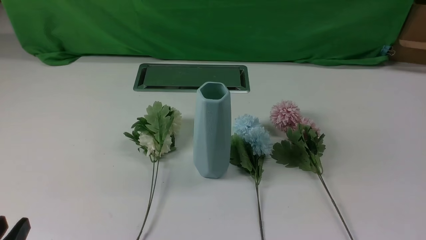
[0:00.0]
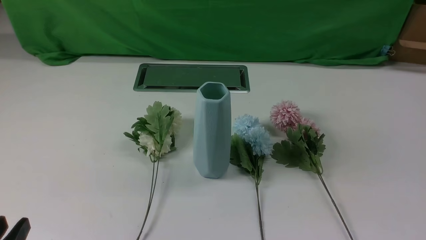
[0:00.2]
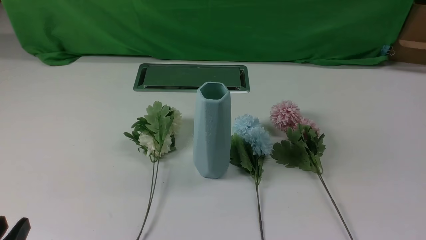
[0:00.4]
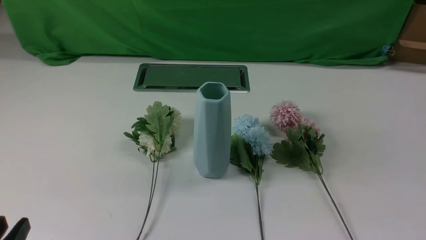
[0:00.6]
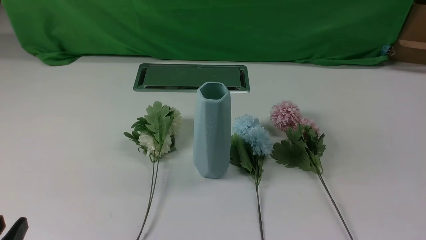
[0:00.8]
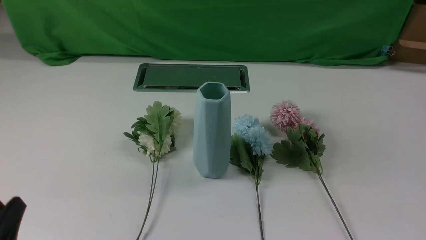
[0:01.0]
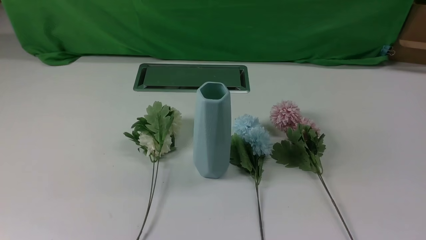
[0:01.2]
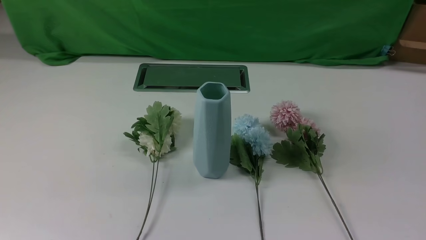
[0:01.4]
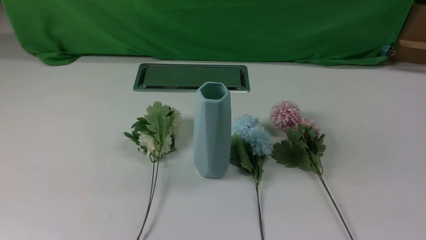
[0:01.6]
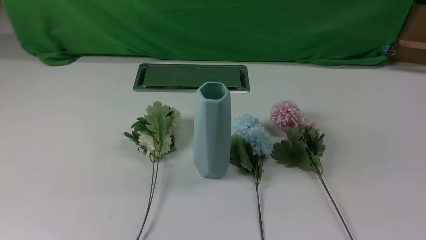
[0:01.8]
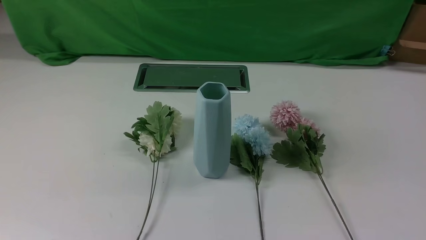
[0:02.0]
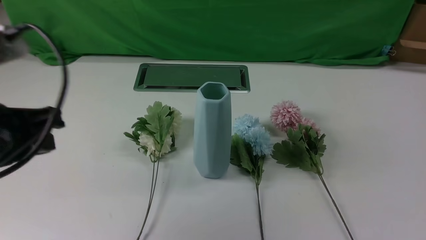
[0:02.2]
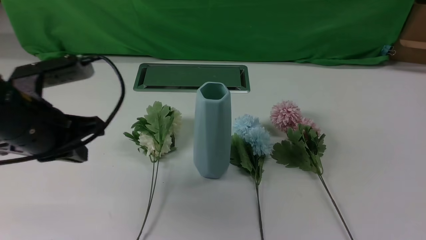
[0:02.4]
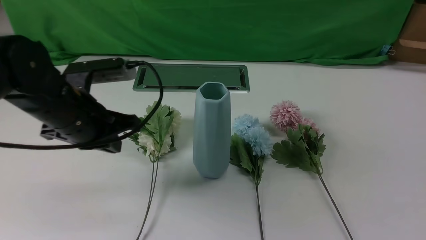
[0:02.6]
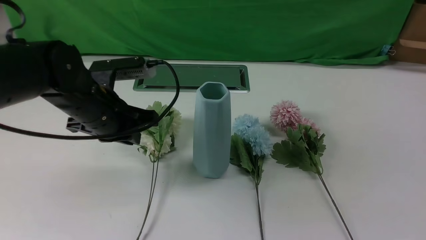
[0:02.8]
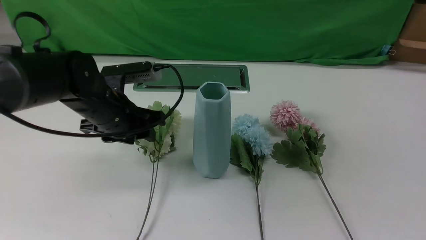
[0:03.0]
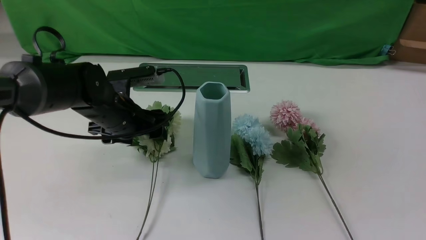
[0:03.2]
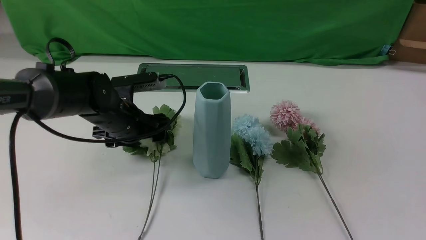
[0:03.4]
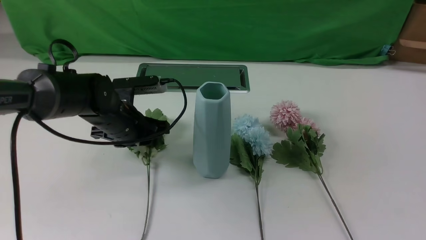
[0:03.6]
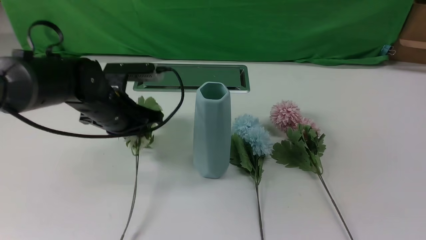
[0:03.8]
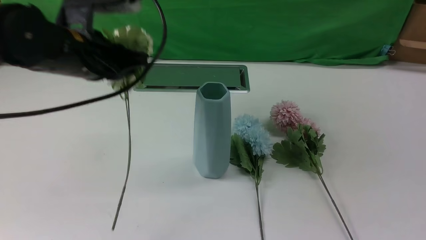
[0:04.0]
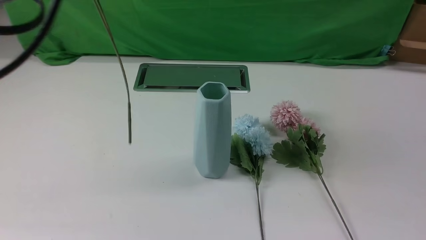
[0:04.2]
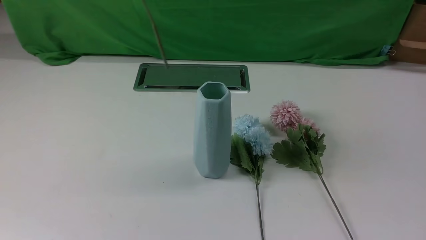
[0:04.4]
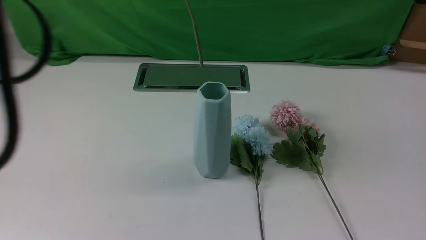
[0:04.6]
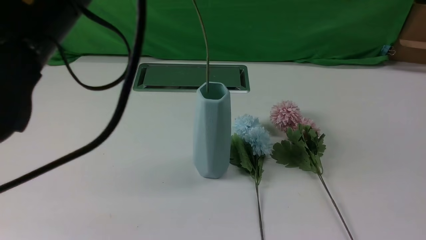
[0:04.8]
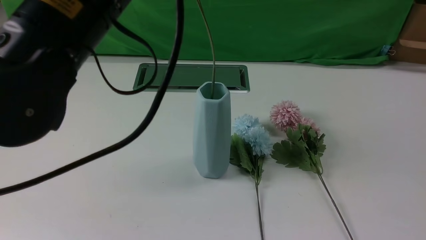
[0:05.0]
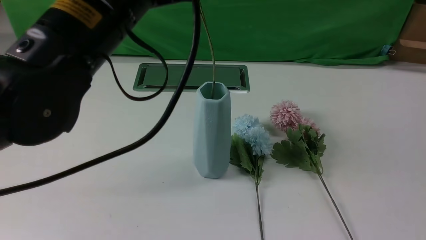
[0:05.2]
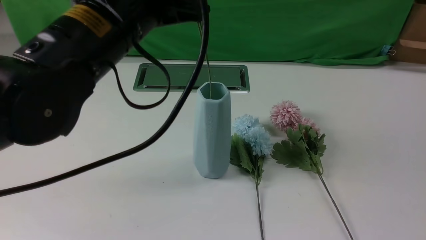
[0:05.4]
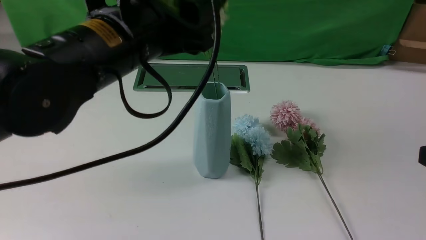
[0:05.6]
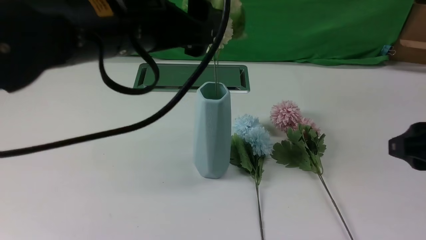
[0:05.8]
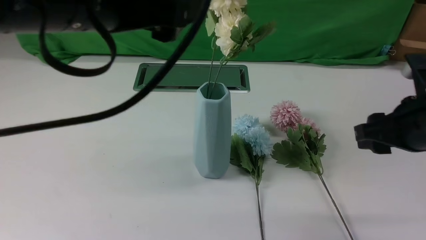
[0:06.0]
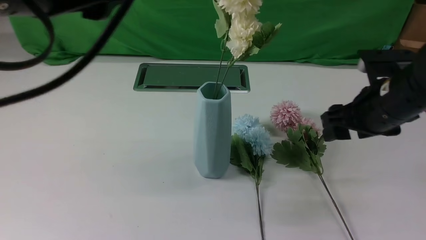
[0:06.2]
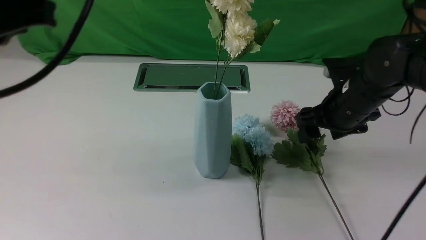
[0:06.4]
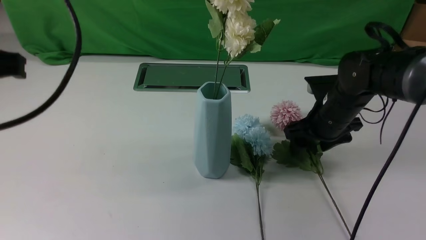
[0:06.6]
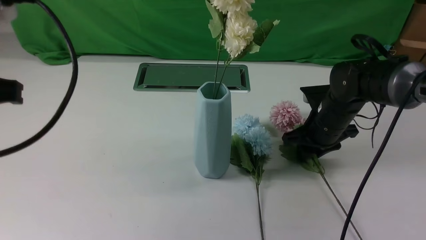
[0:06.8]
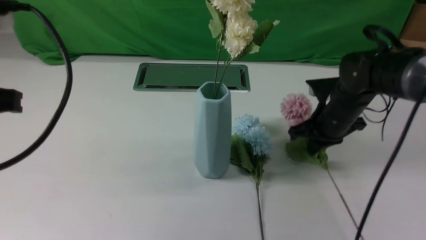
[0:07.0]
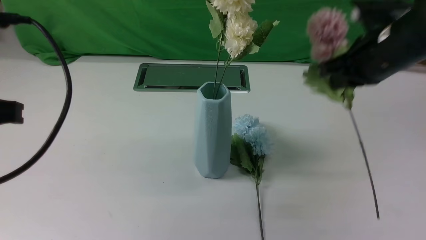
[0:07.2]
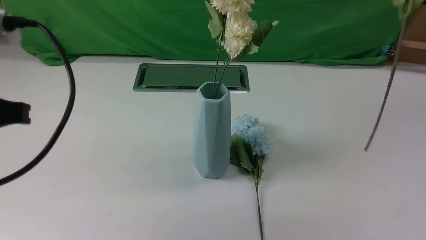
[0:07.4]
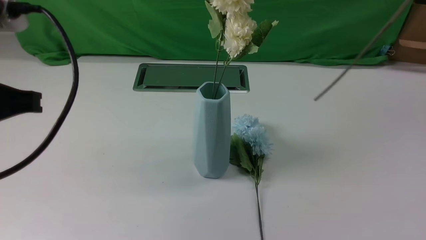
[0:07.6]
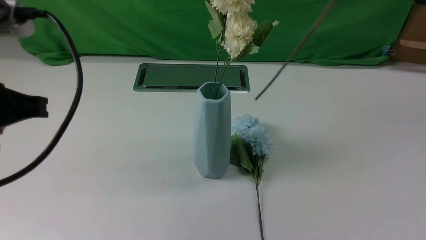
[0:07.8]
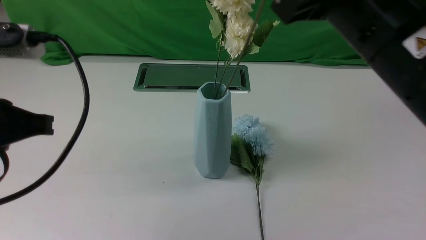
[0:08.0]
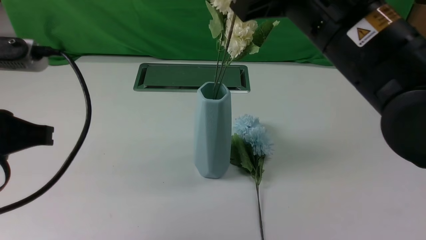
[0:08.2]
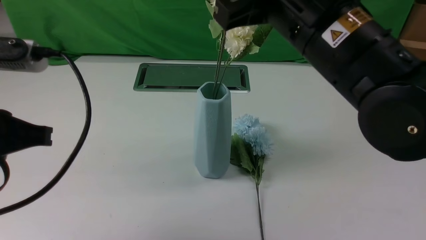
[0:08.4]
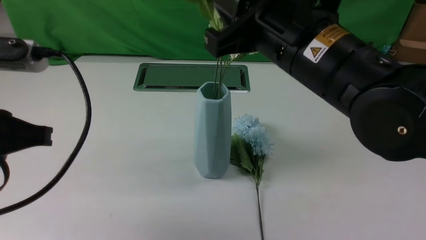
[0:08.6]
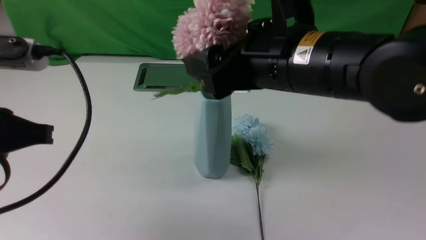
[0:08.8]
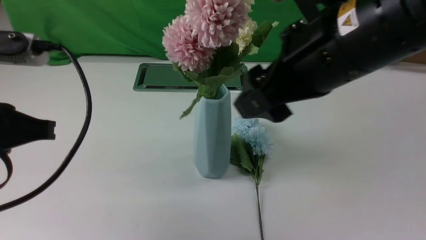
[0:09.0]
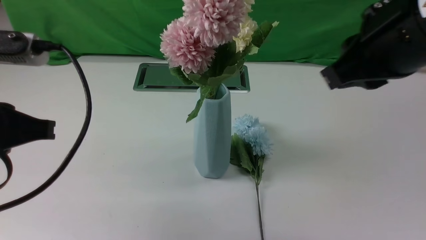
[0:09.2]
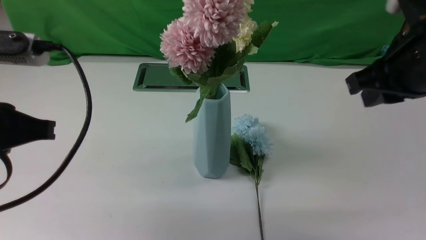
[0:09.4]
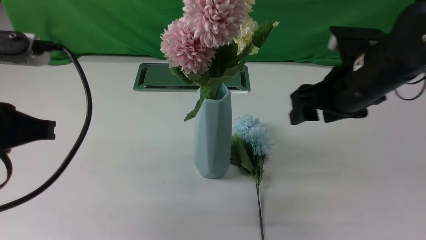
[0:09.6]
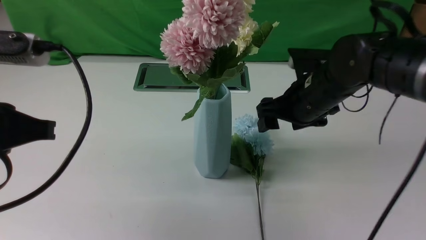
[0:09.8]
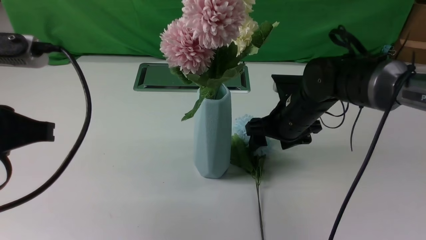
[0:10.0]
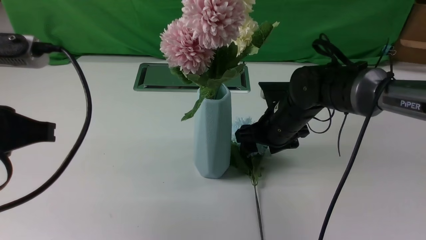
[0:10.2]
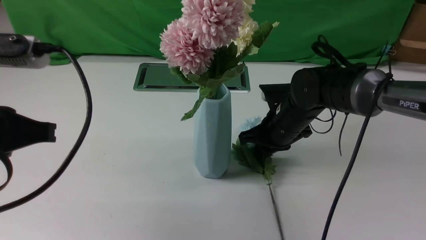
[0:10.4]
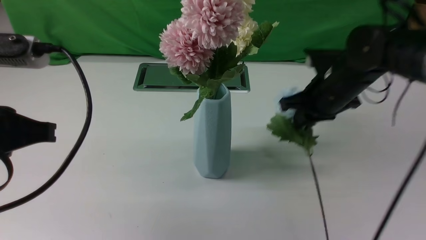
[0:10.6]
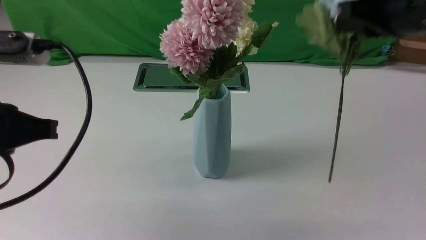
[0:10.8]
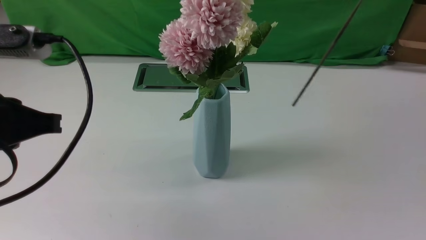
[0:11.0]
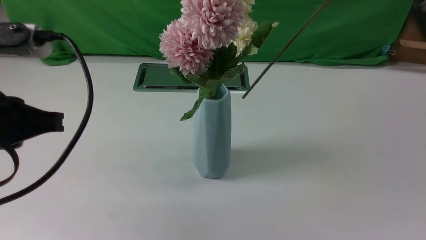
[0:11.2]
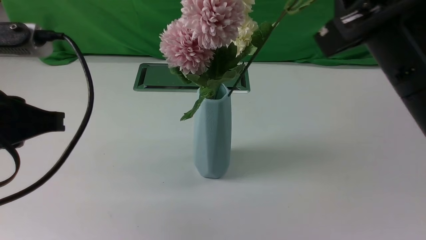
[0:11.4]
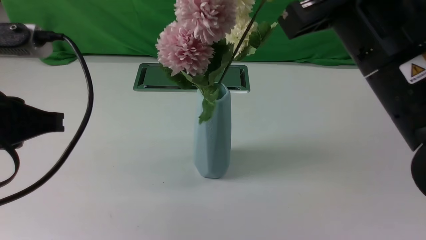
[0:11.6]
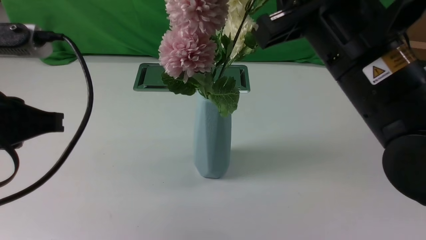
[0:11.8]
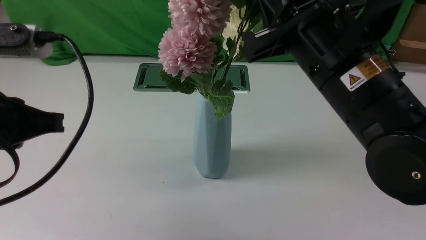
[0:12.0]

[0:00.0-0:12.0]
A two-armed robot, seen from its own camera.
Task of the whole recording: insert the flowers into the vase on the white table.
Step, 0:00.0 to 0:03.6: use the left arm to grab a bunch of fresh flowers.
Step, 0:03.8 to 0:05.8: use the left arm to insert the flowers into the vase.
Step, 0:06.0 to 0:06.8: use the right arm to grab a bunch of fresh flowers.
Step, 0:07.0 to 0:09.0: use the right arm to insert the flowers into the vase.
Step, 0:09.2 to 0:10.4: use the right arm to grab a bunch of fresh flowers.
0:01.6 to 0:03.0: The right gripper goes approximately 15 cm upward and forward. The left gripper is displaced forward by about 30 cm, and opens up.
0:03.0 to 0:04.4: The left gripper goes roughly 30 cm upward and backward, and closes up.
0:04.4 to 0:06.0: The left gripper opens its fingers. The right gripper moves forward, approximately 15 cm, and opens up.
0:06.0 to 0:07.6: The left gripper goes about 10 cm to the left and downward, and closes up. Meanwhile the right gripper is displaced upward and backward by about 15 cm, and closes its fingers.
0:07.6 to 0:09.0: The right gripper heads to the left, downward and forward, covering roughly 15 cm, and opens.
0:09.0 to 0:10.4: The right gripper goes approximately 25 cm downward and forward.
0:10.4 to 0:12.0: The right gripper heads upward and backward, covering about 20 cm.

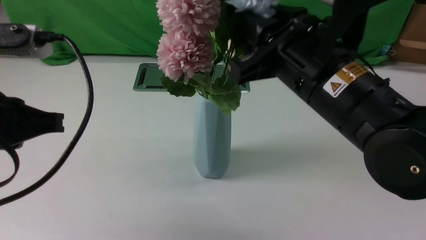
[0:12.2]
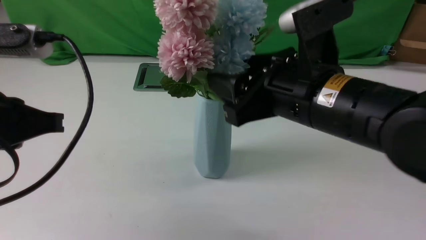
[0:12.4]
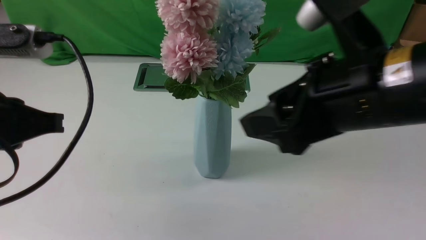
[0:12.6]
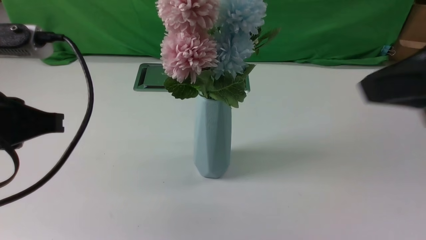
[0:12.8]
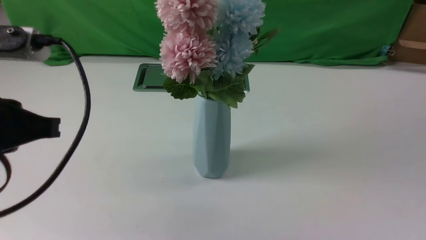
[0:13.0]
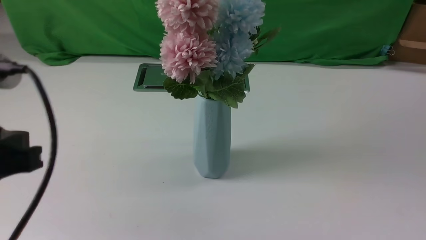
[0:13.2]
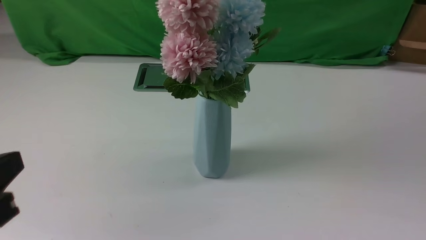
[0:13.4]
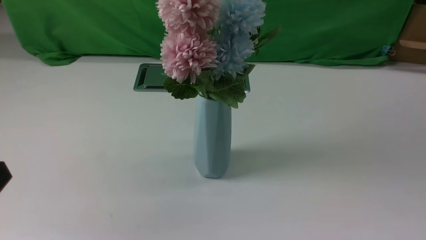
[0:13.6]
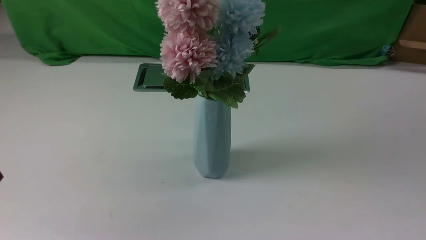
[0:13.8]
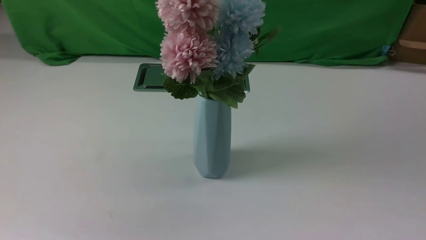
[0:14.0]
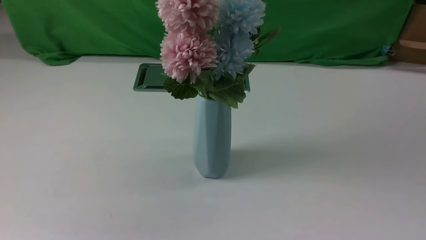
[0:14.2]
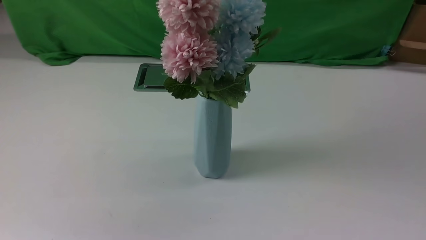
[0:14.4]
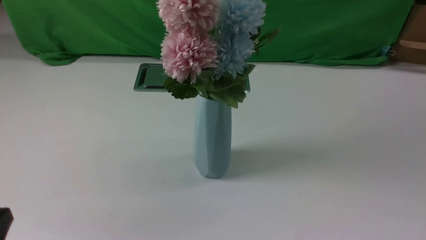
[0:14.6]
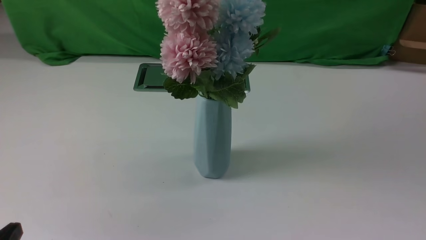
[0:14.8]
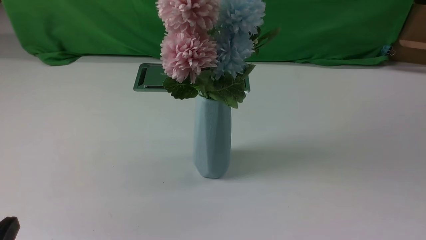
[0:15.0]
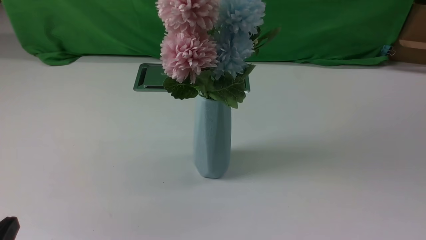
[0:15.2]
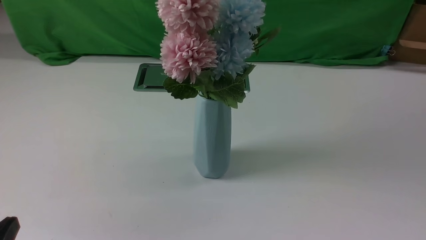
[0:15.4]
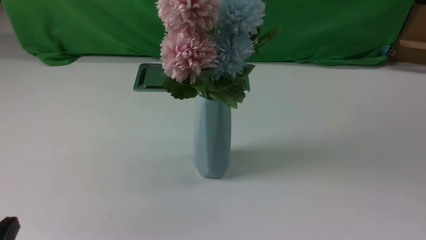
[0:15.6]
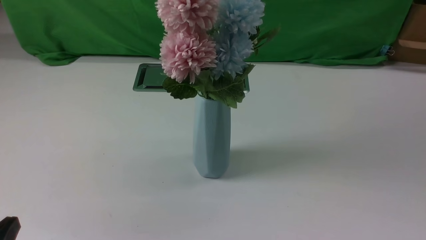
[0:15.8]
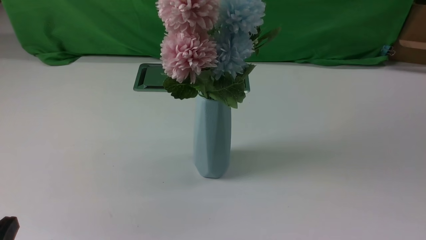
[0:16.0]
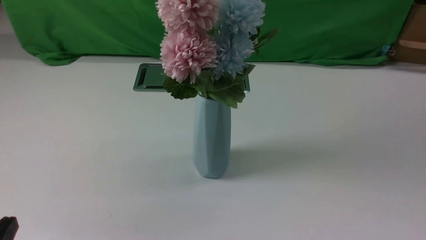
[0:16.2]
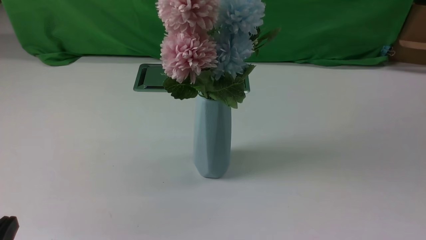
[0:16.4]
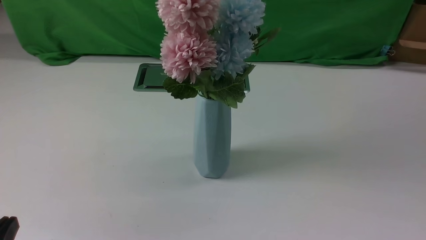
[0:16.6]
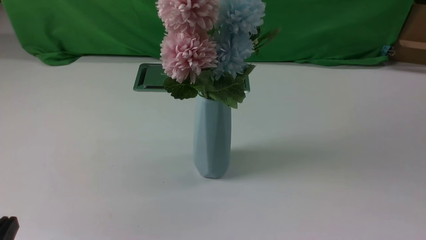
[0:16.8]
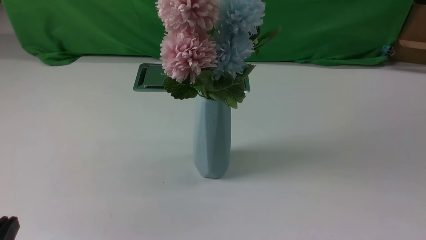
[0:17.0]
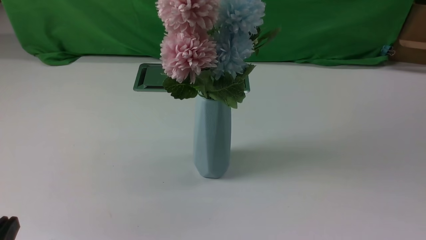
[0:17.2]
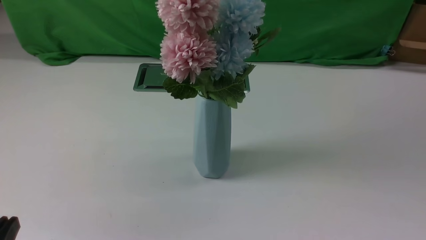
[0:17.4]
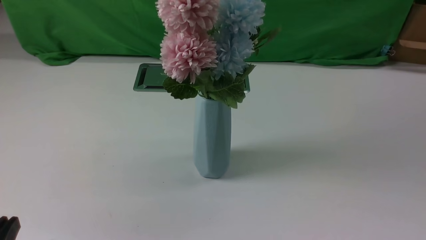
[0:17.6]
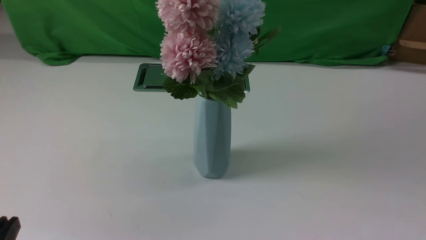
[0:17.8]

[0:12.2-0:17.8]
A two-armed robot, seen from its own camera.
Task of the whole recording: insert the flowers into the vase on the white table.
0:12.2 to 0:13.6: The left gripper heads backward, covering roughly 10 cm. Meanwhile the right gripper moves backward and to the right, approximately 30 cm, and closes up.
0:13.6 to 0:15.0: The left gripper is displaced downward by roughly 10 cm.
0:16.4 to 0:17.8: Neither gripper changes place.
